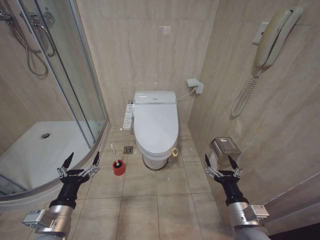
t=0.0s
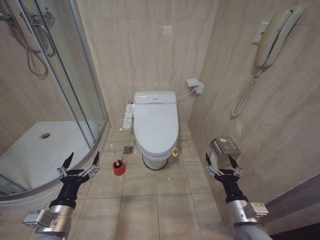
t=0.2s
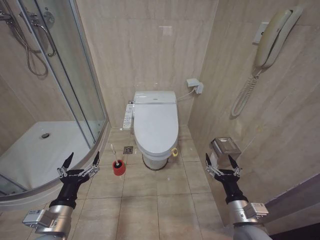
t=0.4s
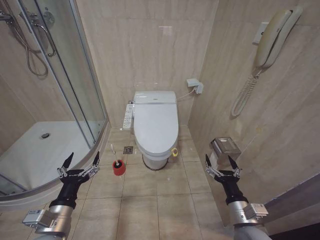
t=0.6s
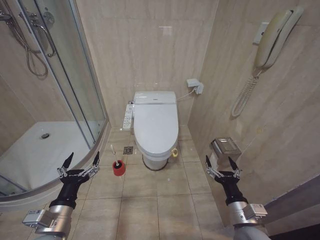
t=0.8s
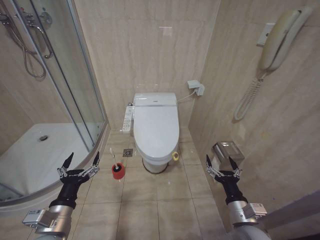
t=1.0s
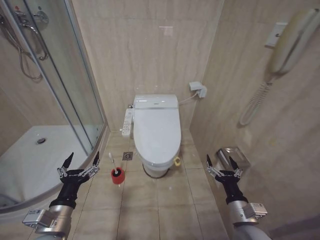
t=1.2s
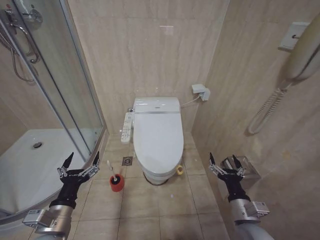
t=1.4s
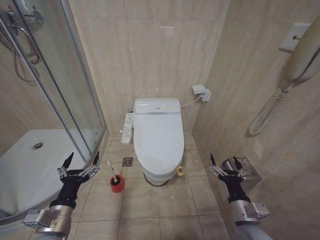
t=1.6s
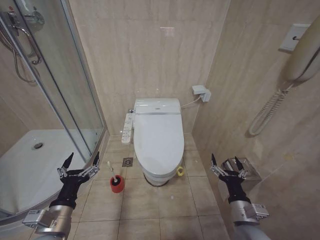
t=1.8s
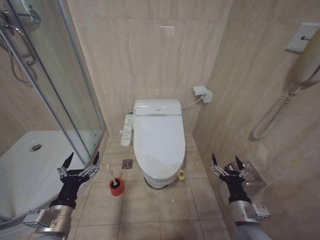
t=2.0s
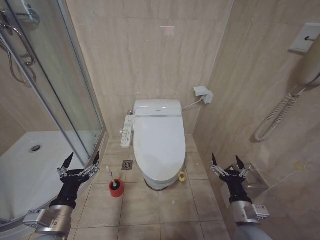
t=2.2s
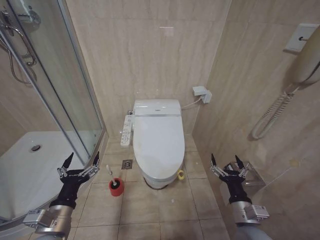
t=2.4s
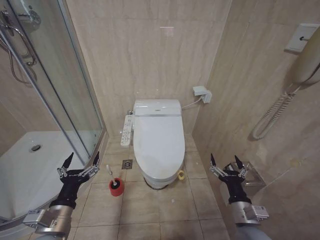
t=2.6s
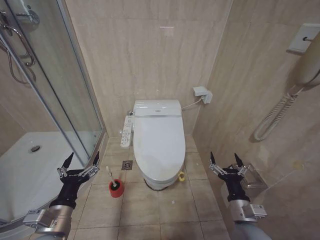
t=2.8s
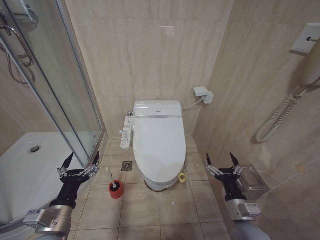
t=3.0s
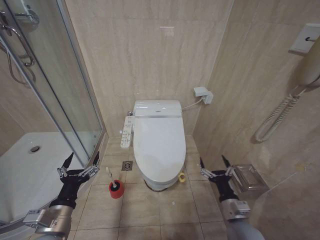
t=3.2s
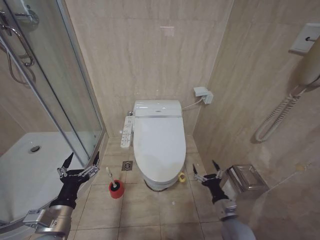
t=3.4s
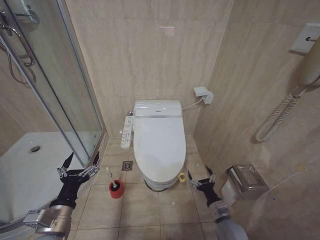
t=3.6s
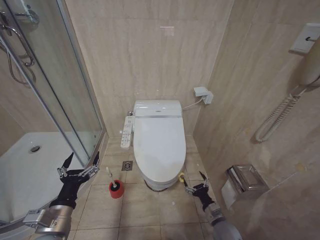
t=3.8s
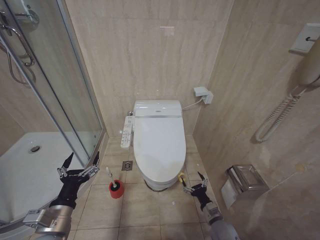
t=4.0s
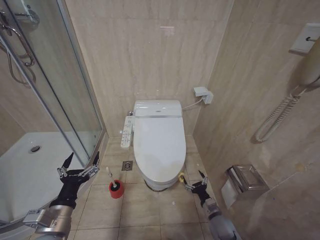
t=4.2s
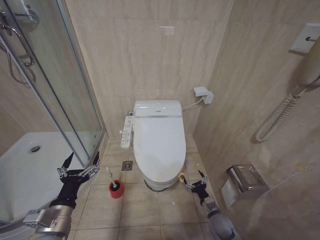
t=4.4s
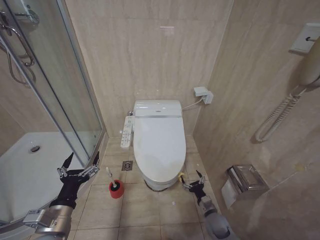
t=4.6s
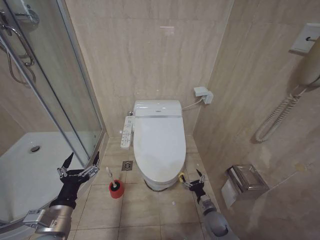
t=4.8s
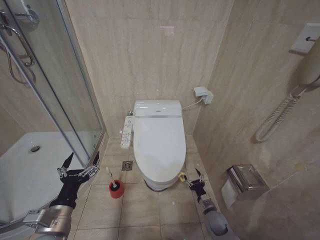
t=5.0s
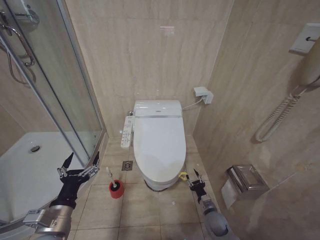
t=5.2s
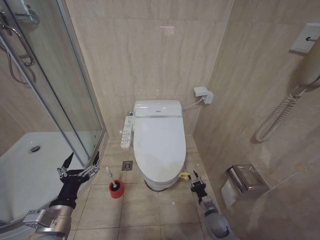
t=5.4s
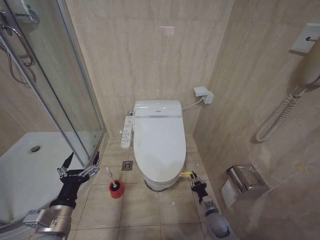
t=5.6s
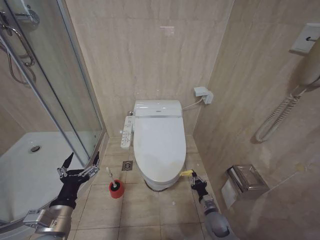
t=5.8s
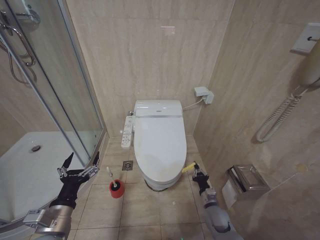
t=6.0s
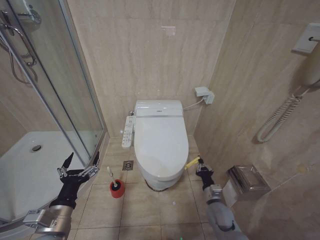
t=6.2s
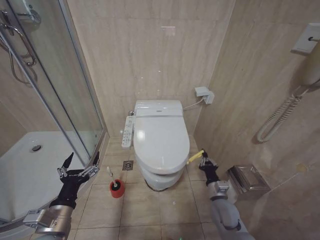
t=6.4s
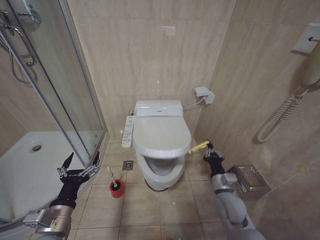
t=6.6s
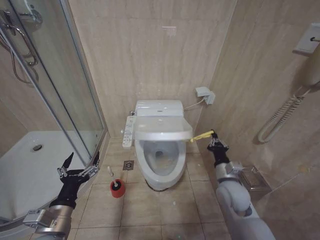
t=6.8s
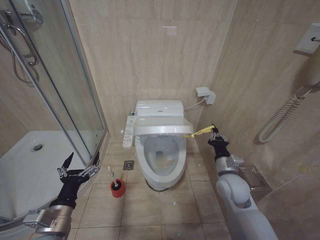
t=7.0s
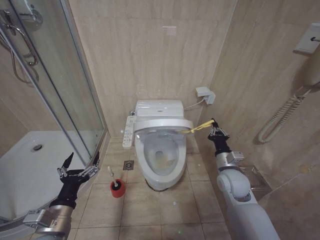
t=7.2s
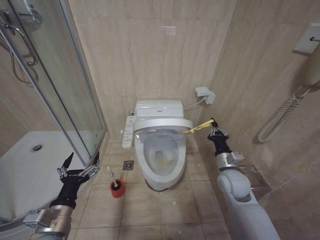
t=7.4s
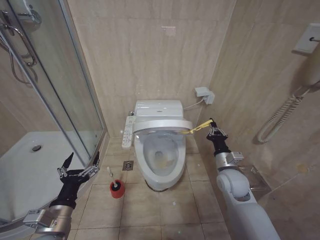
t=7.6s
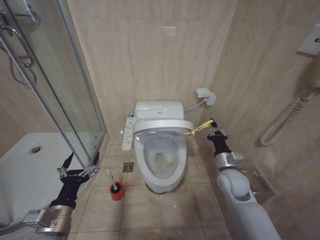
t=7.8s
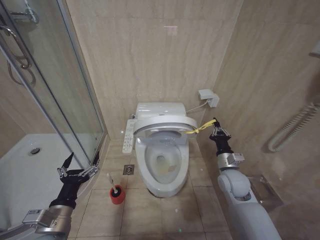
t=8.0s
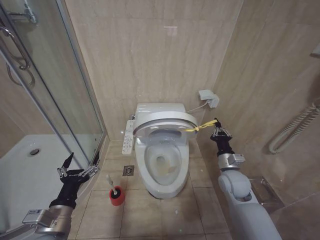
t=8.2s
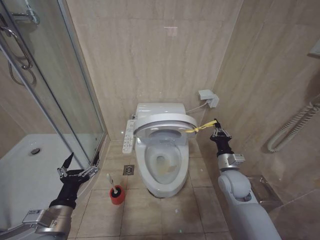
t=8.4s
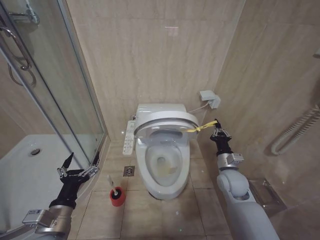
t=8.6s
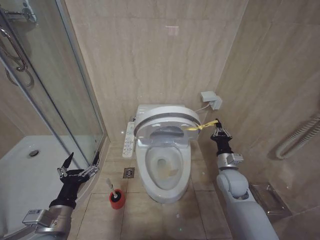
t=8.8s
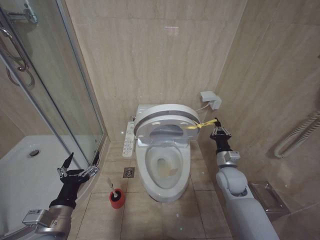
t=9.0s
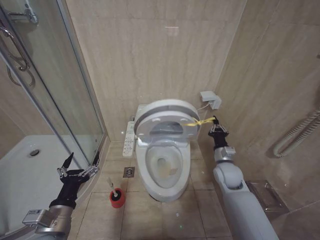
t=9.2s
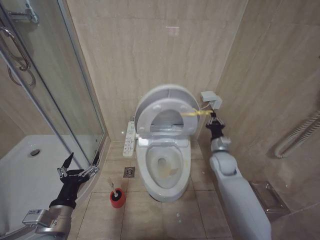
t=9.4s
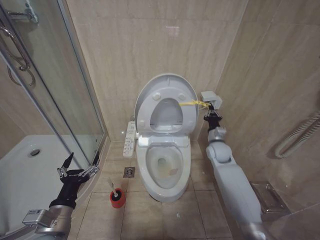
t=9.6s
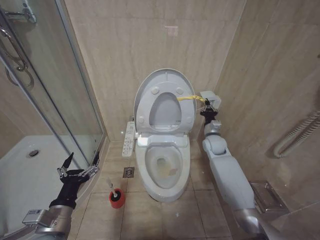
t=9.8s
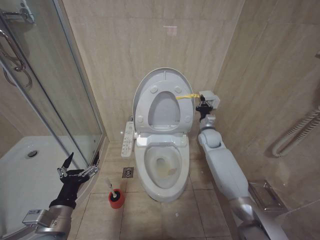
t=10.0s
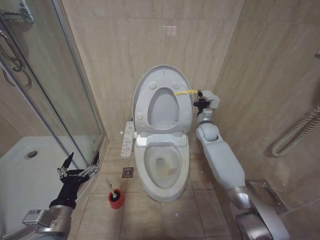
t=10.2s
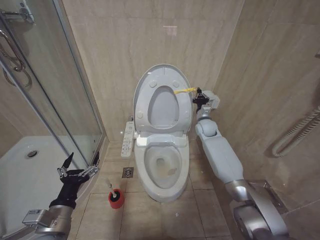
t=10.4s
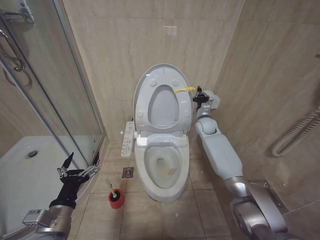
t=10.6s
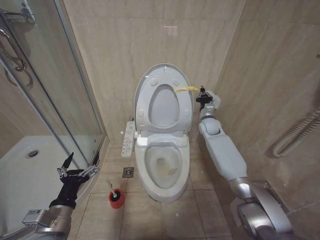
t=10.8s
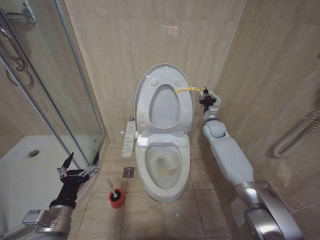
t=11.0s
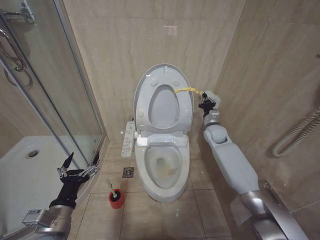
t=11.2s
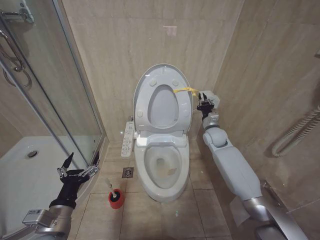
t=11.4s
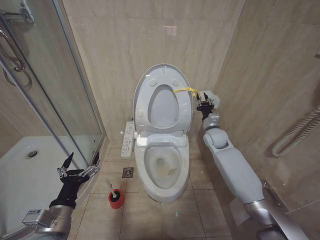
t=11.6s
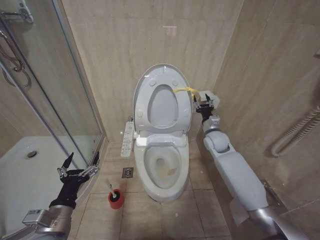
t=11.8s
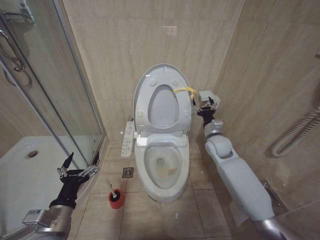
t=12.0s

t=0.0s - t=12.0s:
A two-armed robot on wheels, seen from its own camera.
Task of the whole recording: Open the toilet lid, clean the toilet bowl with a toilet brush, close the toilet lid, and flush.
t=1.6s - t=3.0s: The grippers make only small movements.
t=3.0s - t=4.4s: The right gripper heads downward and forward, covering roughly 20 cm.
t=4.4s - t=6.0s: The right gripper closes.
t=6.0s - t=7.6s: The right gripper goes approximately 25 cm upward.
t=7.6s - t=9.0s: There are only small adjustments of the grippers.
t=9.0s - t=10.4s: The right gripper goes approximately 20 cm forward.
t=10.4s - t=12.0s: The right gripper travels backward by some 10 cm, and opens.

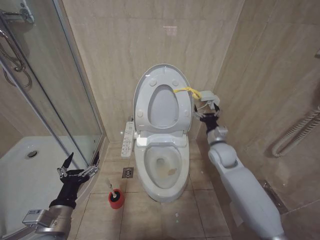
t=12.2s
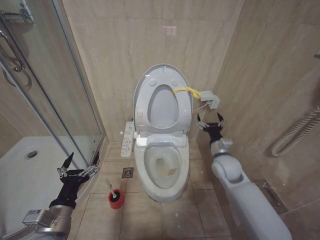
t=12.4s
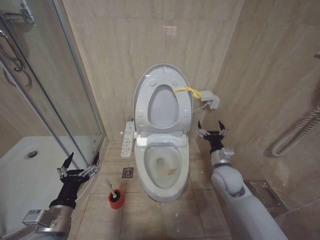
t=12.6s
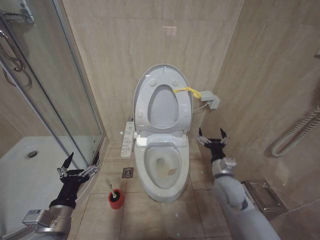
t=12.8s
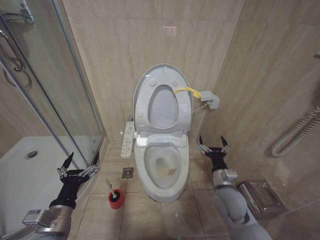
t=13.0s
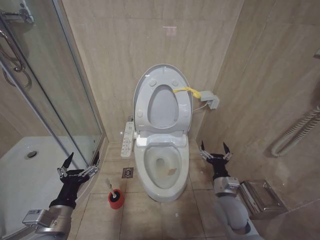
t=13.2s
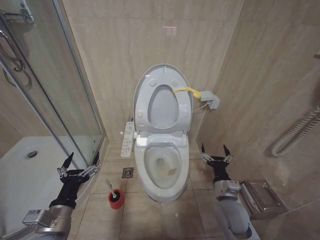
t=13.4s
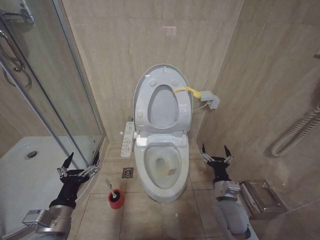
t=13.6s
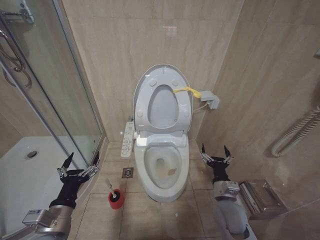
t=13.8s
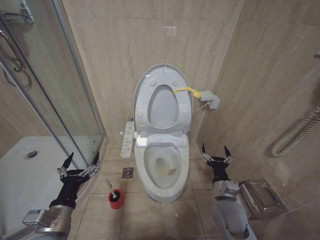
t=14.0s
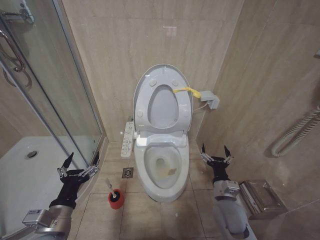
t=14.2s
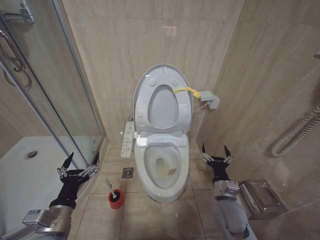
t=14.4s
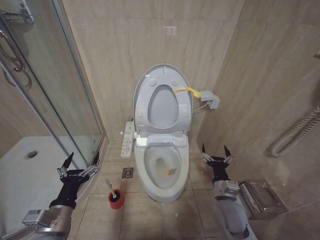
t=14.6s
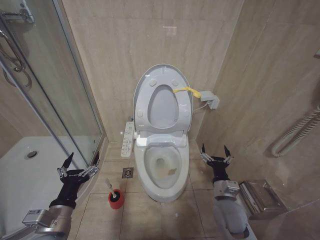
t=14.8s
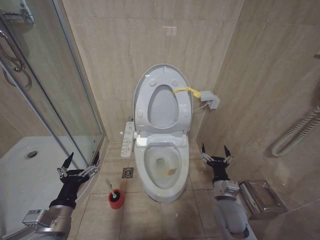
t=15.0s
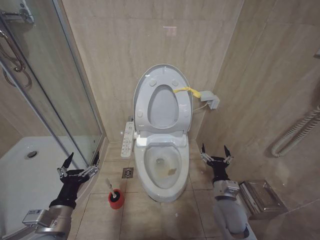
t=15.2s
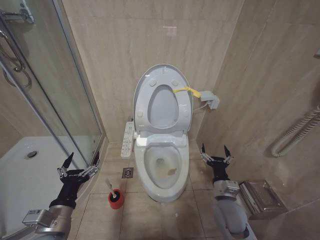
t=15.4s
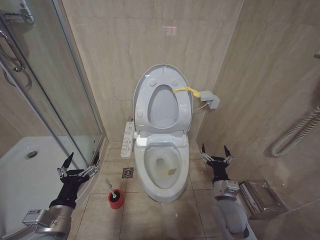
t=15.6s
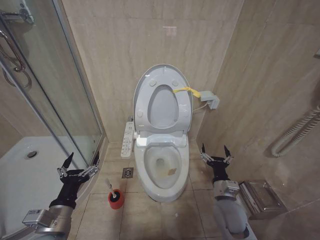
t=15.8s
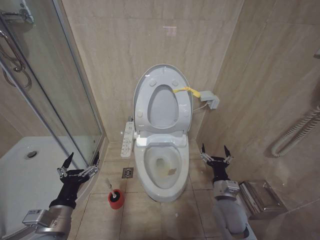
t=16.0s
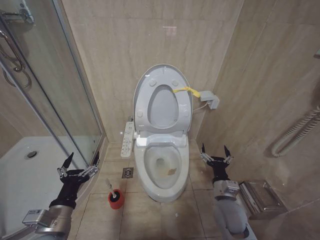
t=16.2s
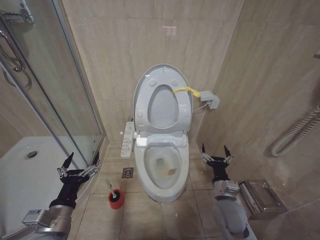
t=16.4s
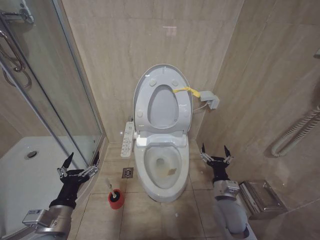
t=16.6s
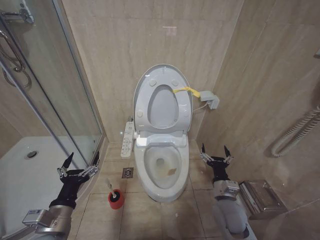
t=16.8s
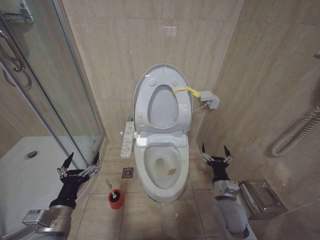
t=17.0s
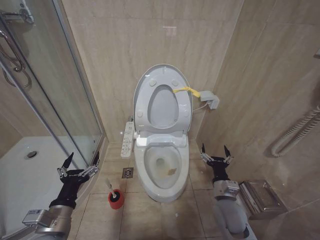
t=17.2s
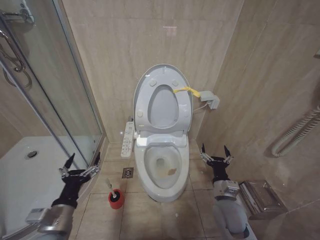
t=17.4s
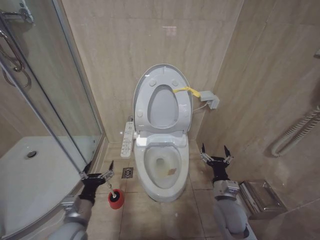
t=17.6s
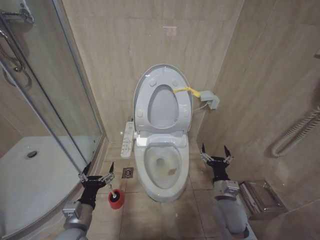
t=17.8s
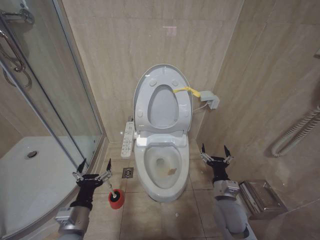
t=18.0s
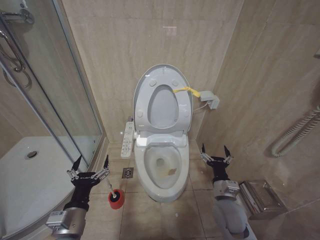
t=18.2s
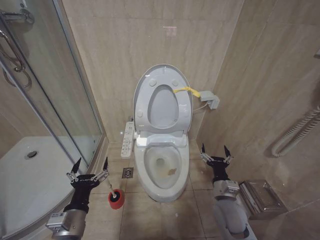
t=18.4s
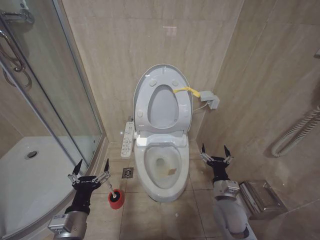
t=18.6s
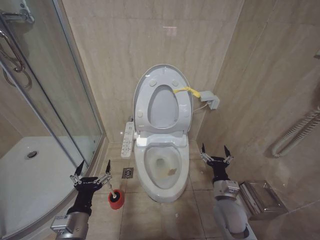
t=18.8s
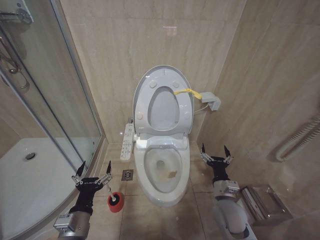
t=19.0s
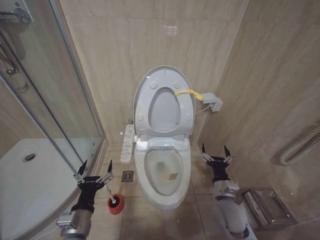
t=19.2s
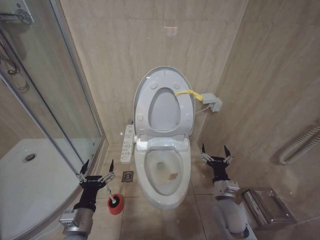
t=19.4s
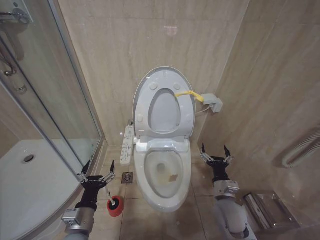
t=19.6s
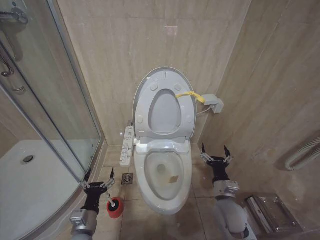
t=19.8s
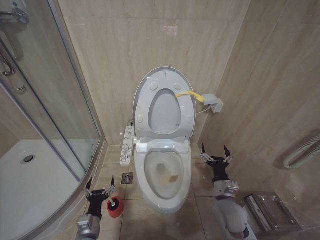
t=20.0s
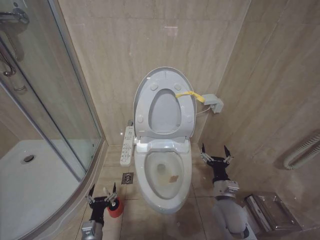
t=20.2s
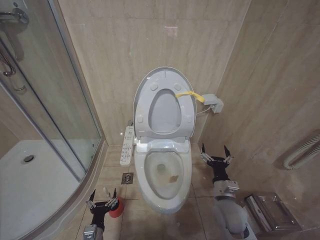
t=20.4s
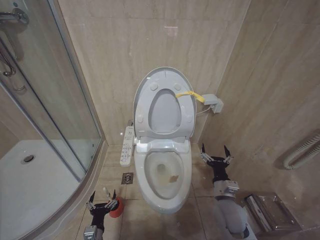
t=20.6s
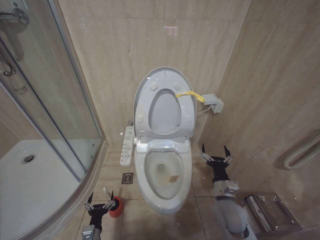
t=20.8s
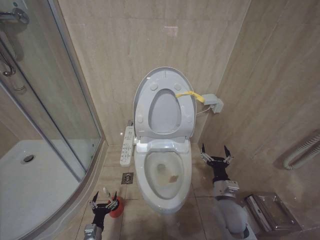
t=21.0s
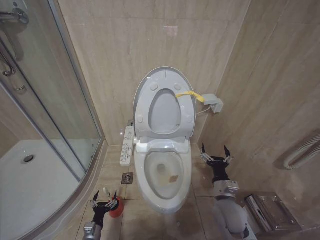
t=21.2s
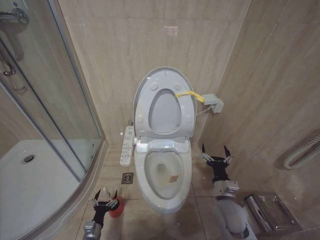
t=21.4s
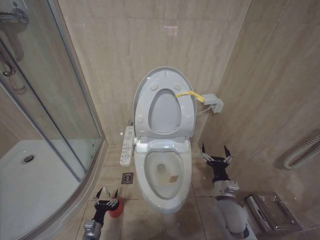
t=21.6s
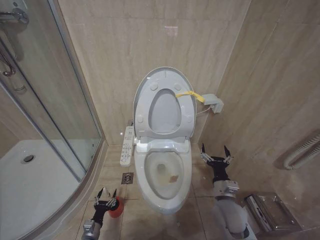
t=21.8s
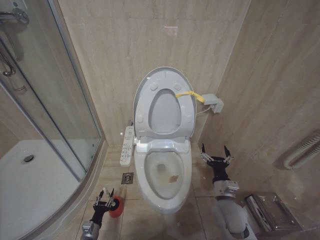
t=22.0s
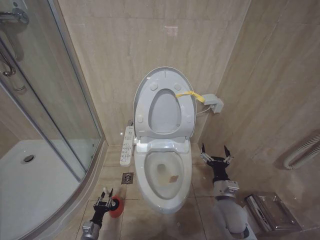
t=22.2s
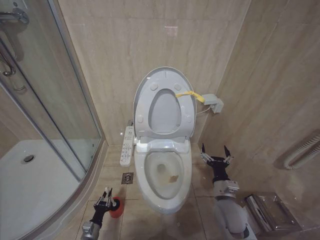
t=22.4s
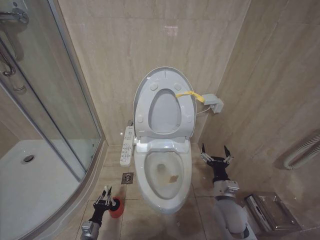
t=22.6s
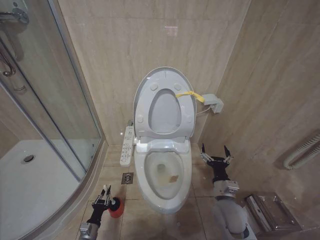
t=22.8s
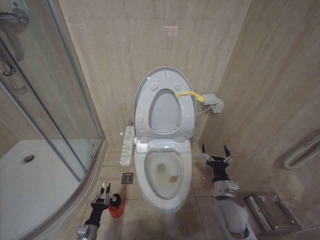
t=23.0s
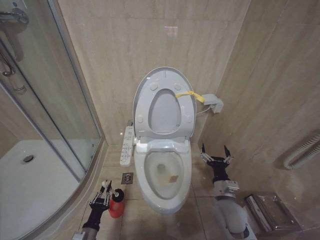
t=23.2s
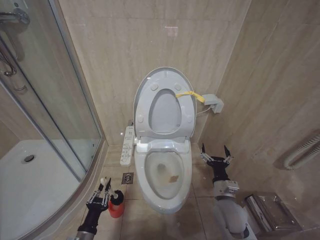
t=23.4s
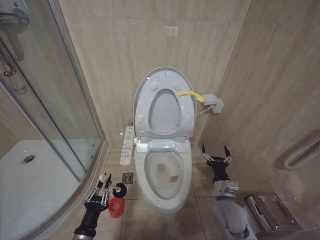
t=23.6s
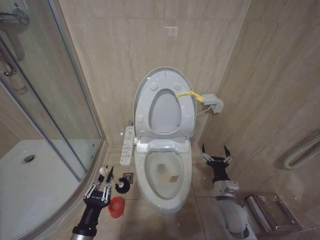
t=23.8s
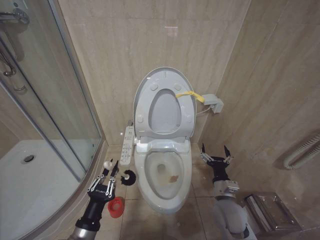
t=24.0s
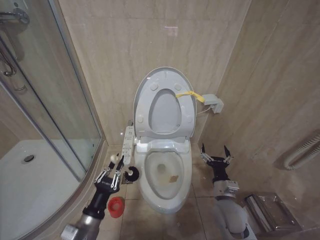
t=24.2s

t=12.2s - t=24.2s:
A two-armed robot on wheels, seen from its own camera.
Task of the whole recording: Open the toilet lid, clean the toilet bowl with a toilet brush, close the toilet lid, and flush.
t=12.2s - t=13.8s: The right gripper is displaced backward and downward by some 20 cm.
t=13.8s - t=16.6s: Both grippers stay put.
t=18.2s - t=19.8s: The left gripper is displaced downward by about 5 cm.
t=19.8s - t=21.2s: The left gripper goes some 25 cm downward.
t=21.2s - t=22.6s: The left gripper closes up.
t=22.6s - t=24.2s: The left gripper is displaced upward by roughly 30 cm.
